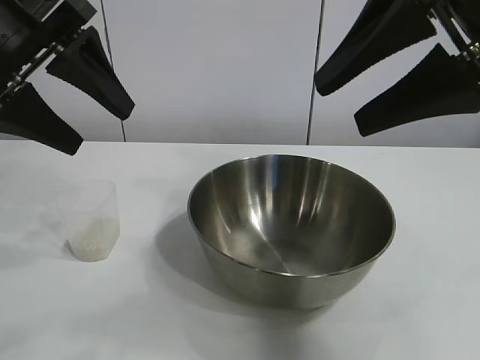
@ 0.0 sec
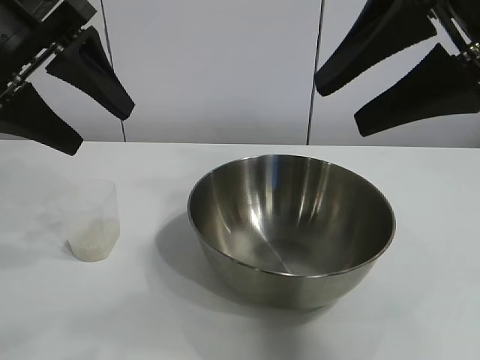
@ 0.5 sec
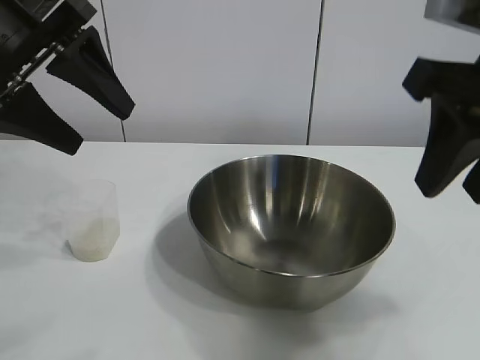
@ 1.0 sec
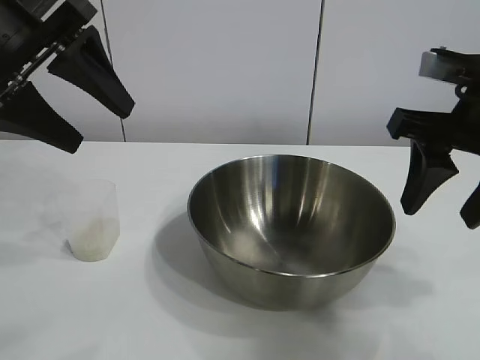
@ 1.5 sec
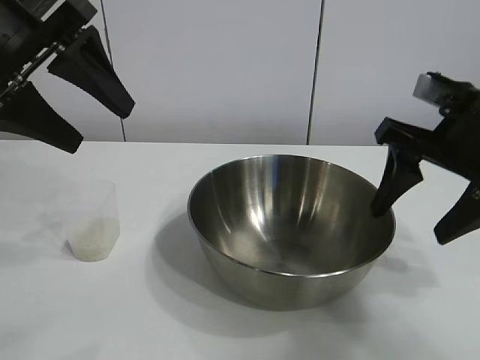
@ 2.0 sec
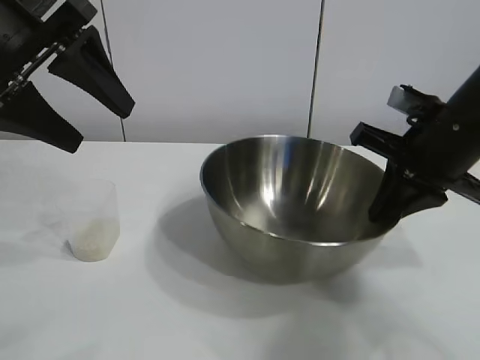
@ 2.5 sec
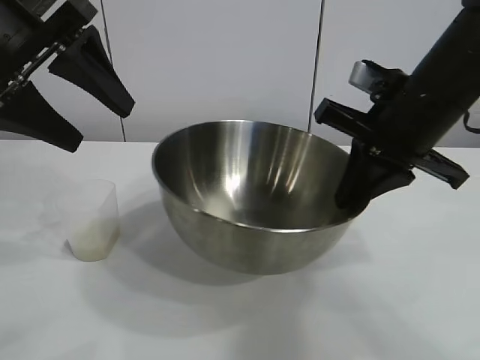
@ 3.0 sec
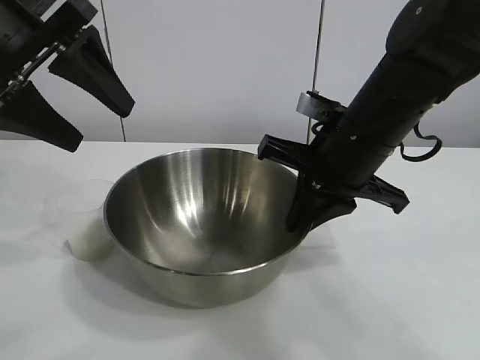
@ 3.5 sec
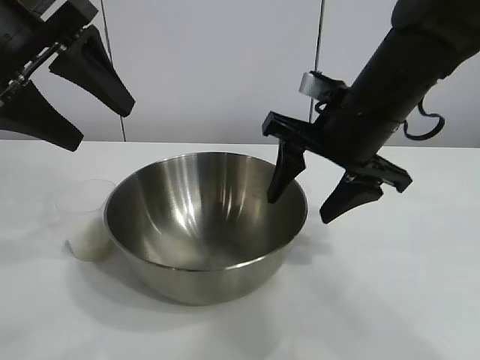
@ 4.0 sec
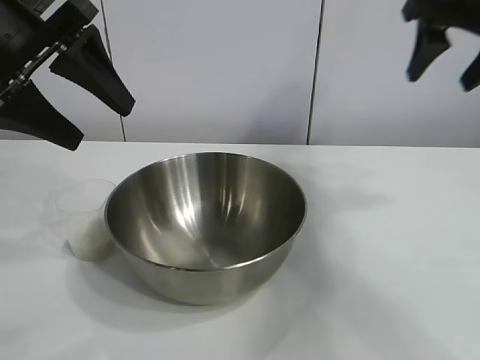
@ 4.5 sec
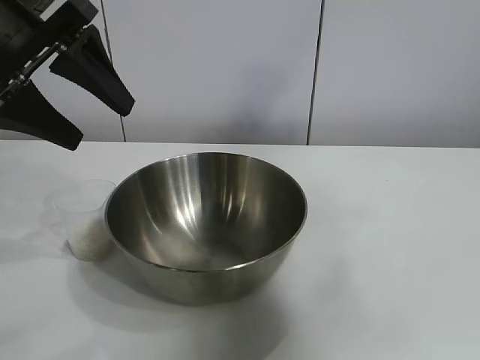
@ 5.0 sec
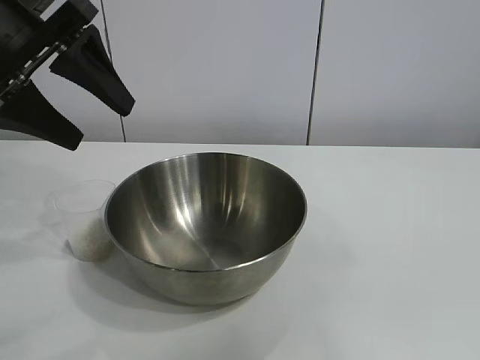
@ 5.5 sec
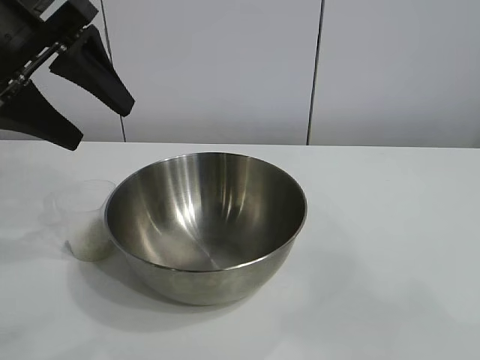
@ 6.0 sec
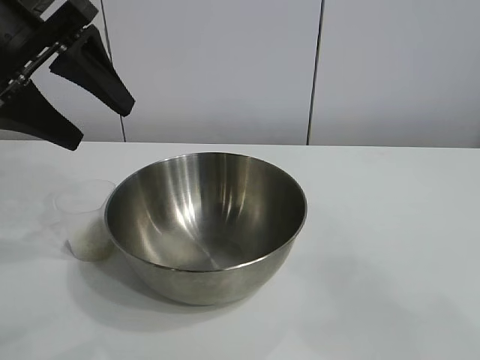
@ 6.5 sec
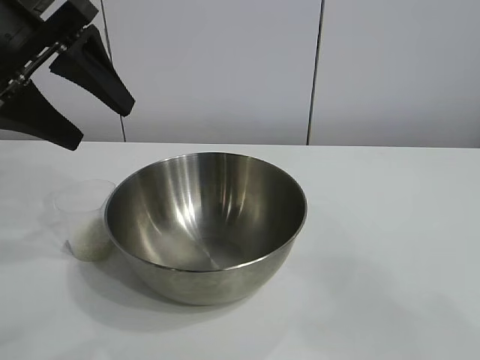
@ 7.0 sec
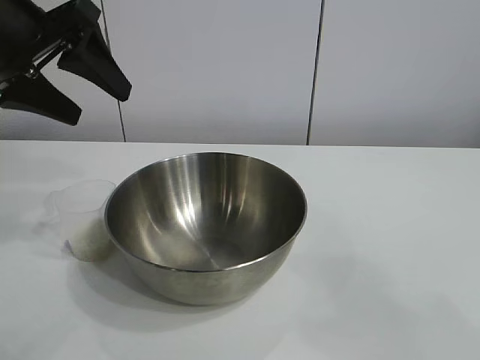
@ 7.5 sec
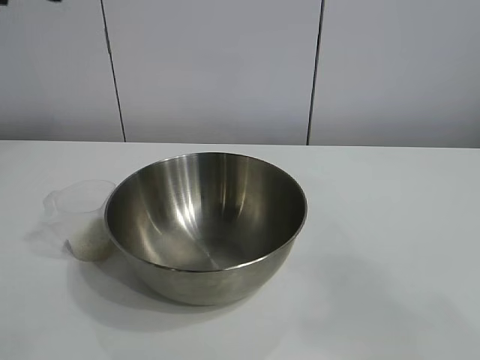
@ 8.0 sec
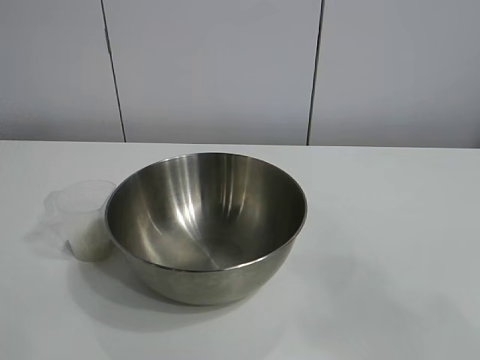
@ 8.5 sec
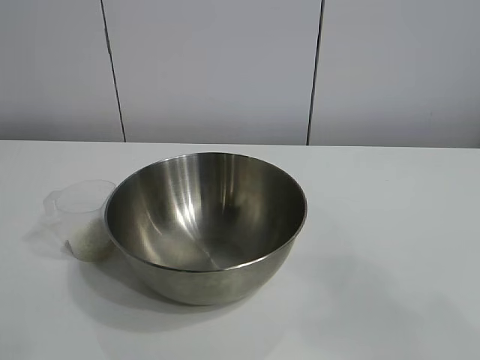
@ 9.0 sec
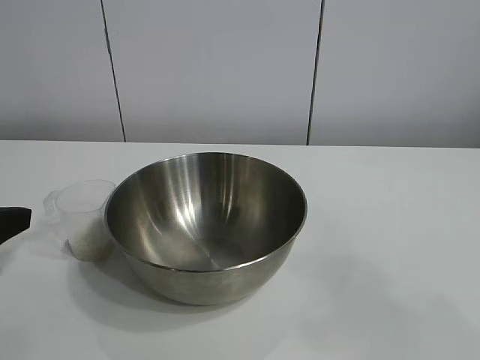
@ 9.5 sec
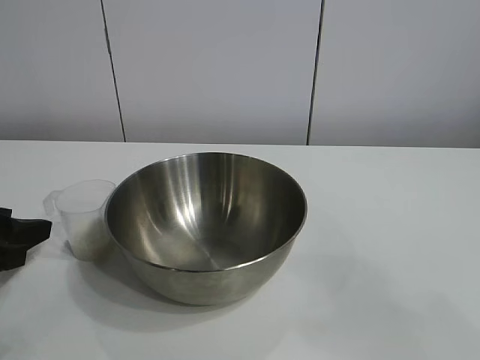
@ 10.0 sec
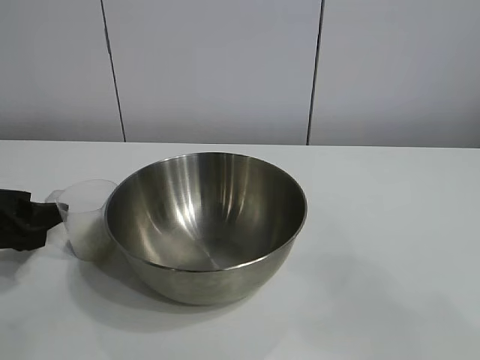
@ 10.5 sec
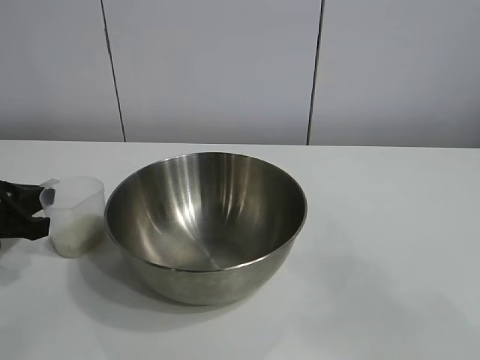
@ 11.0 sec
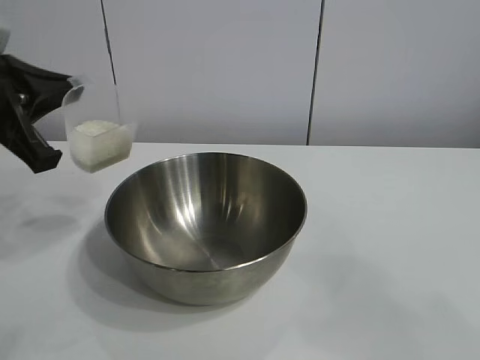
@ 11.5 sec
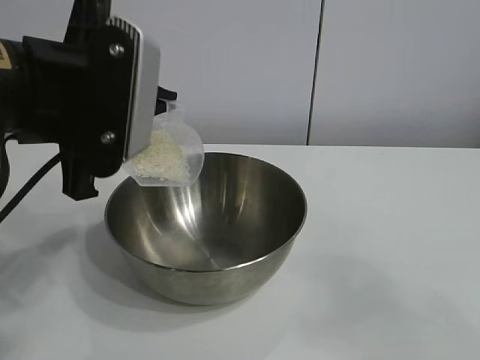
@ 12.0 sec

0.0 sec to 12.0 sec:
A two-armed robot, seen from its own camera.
Task of the whole recording: the right gripper grasp the rice container and place it in the center of the table, the left gripper grasp the rice scoop and pour the rice into the rice container.
Step, 1.0 sec to 3.5 sec: Move the bowl in the center of view with right gripper.
Step, 4.0 sec to 10.5 sec: Grasp the cup with rice in it with left gripper.

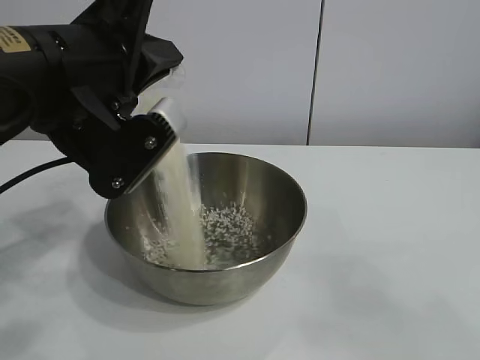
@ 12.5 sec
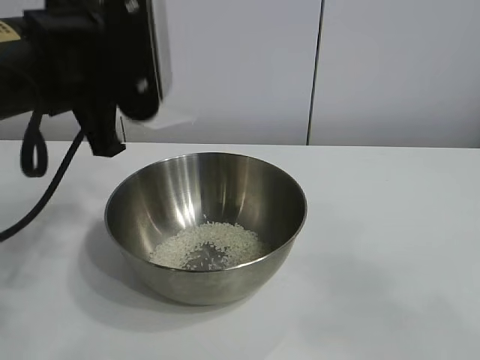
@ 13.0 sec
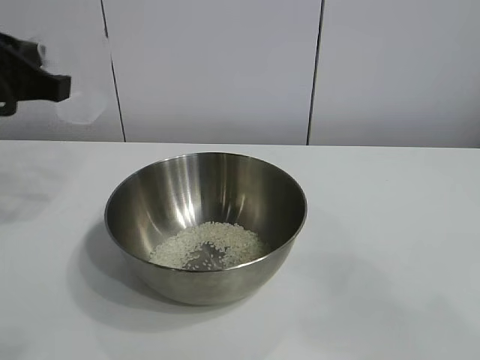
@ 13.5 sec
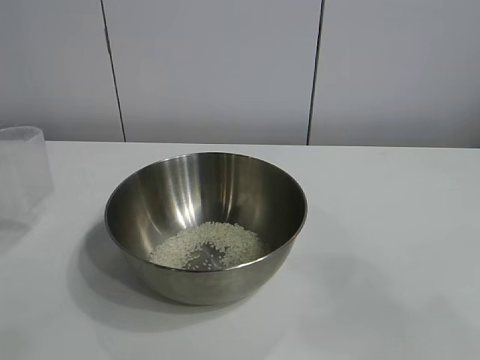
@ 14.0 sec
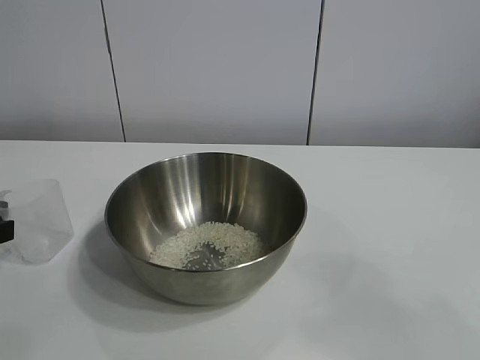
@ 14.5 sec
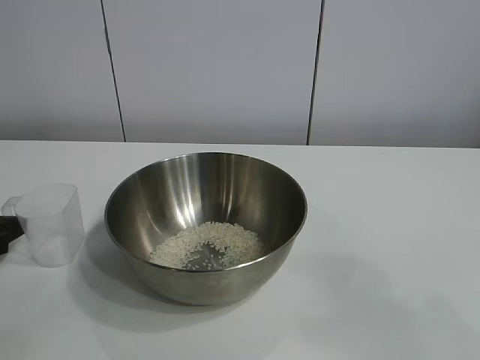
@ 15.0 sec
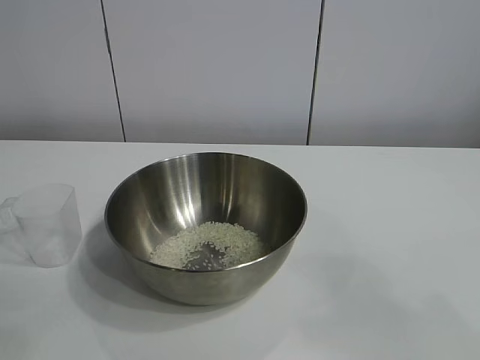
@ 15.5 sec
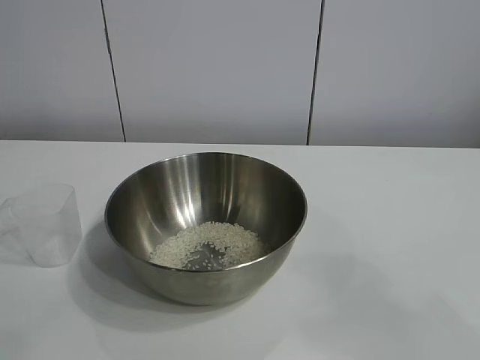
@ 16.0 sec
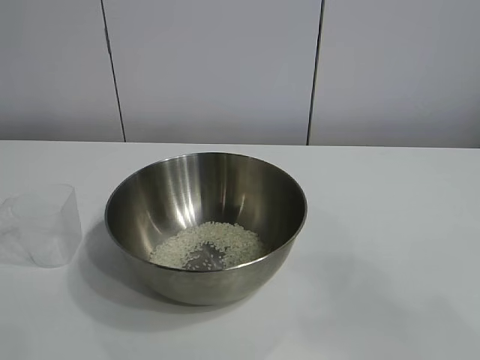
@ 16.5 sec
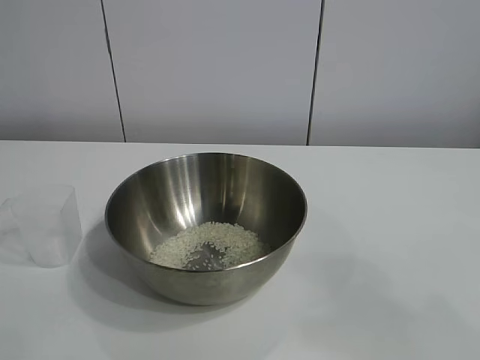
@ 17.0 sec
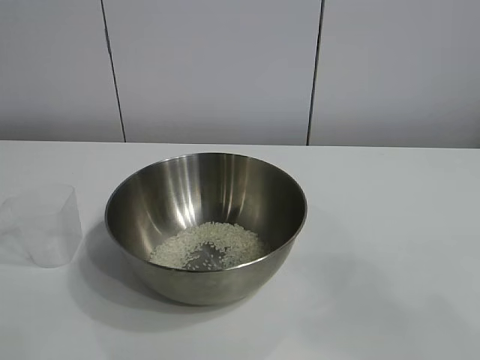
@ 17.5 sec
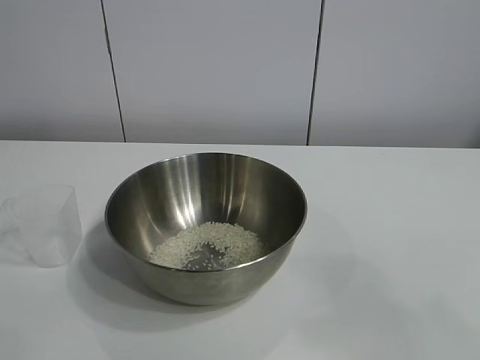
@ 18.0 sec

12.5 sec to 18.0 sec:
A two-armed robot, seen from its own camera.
Task of the whole recording: the right gripper grasp the rice container and place it in the center of the table, the left gripper grasp the rice scoop and pour the rice into the rice container.
Step, 13.0 sec to 14.5 sec: Place the cup on the table with the left gripper.
